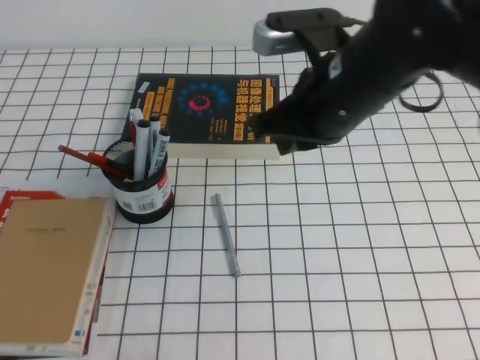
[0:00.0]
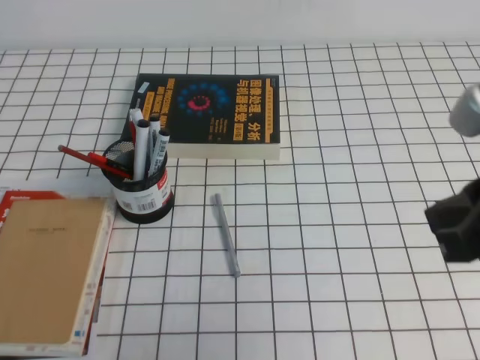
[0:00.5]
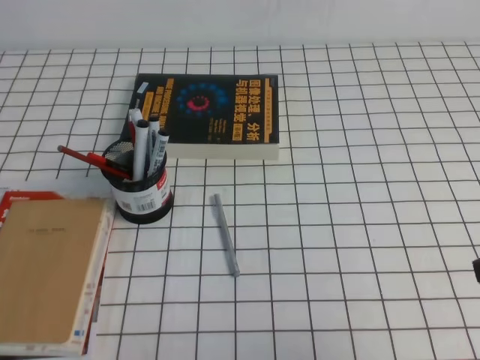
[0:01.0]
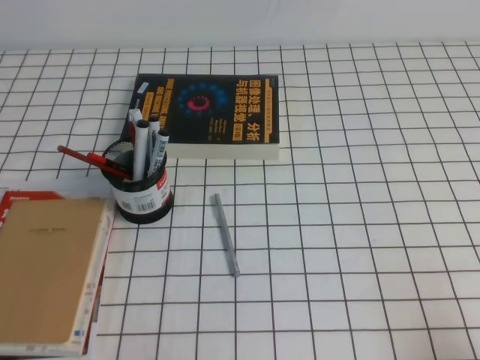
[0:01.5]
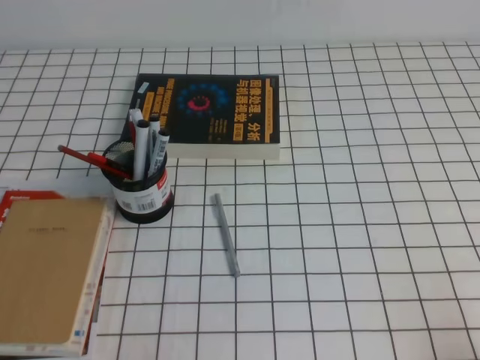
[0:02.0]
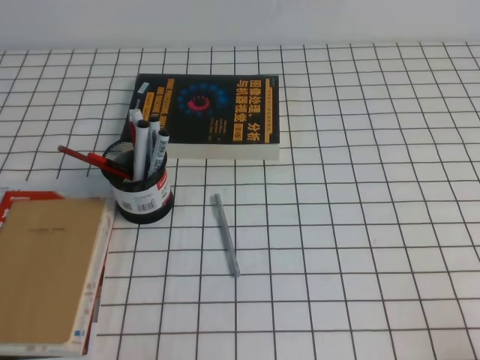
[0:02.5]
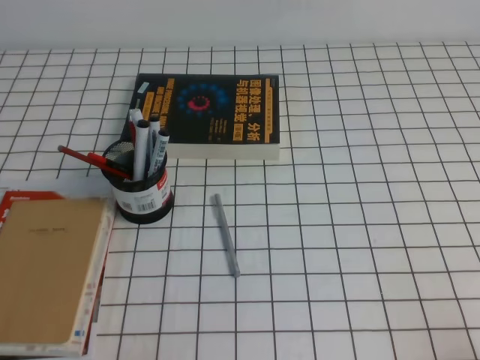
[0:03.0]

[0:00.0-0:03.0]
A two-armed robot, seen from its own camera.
Step, 0:00.0 to 0:03.0: Pick up the pen from the pen holder.
0:00.0 to 0:01.5: The right gripper goes approximately 35 cm backward, to the right and downward.

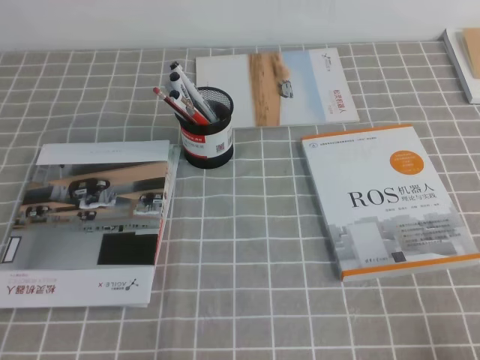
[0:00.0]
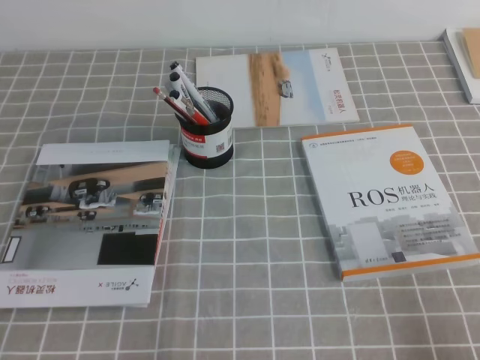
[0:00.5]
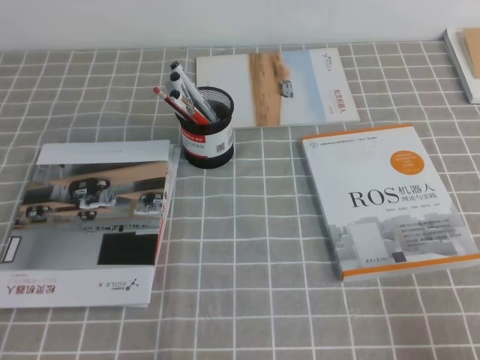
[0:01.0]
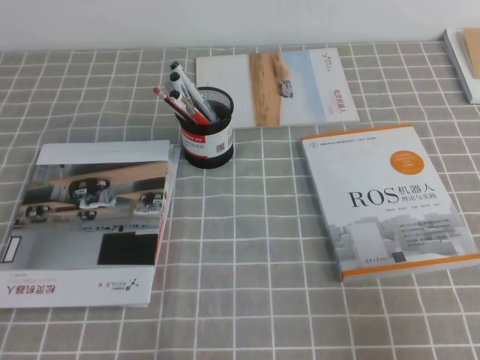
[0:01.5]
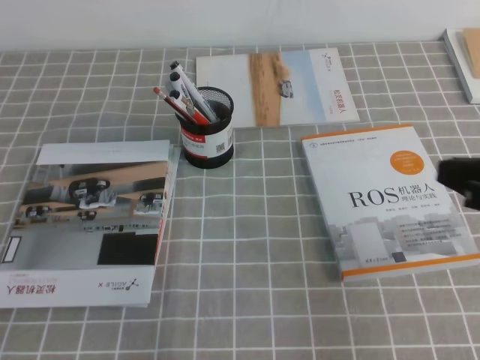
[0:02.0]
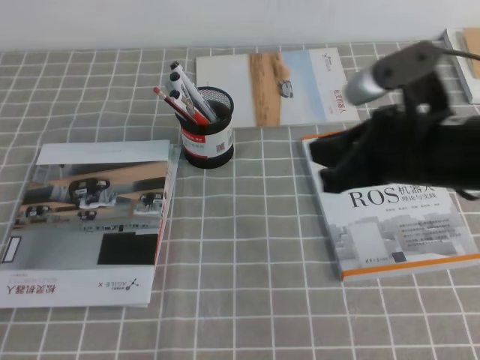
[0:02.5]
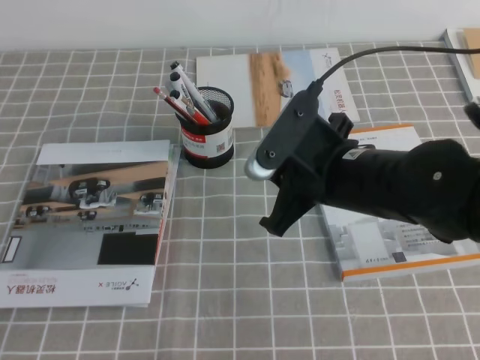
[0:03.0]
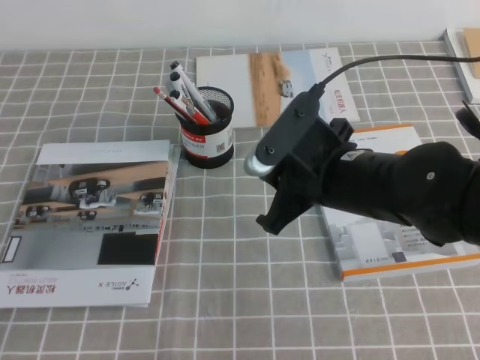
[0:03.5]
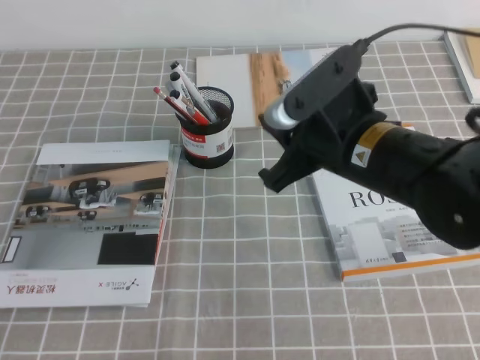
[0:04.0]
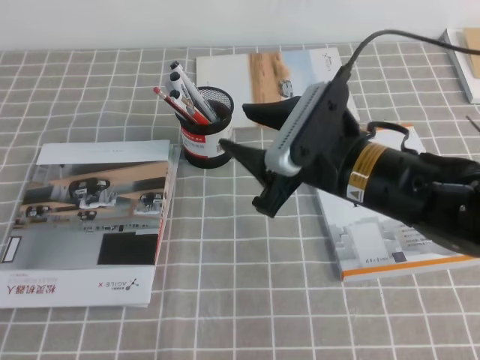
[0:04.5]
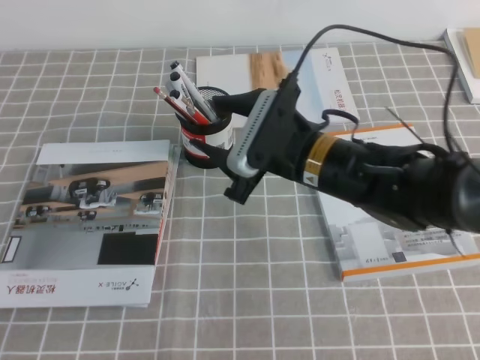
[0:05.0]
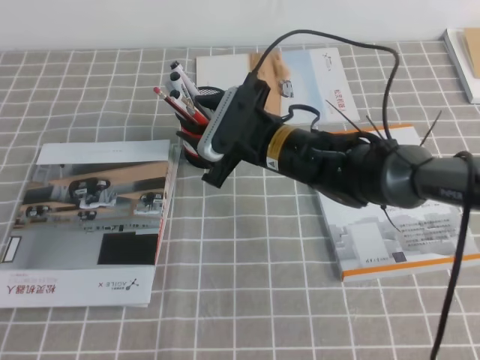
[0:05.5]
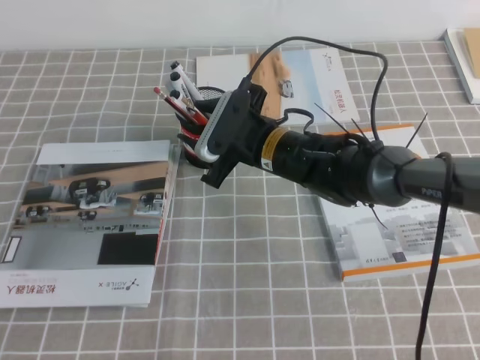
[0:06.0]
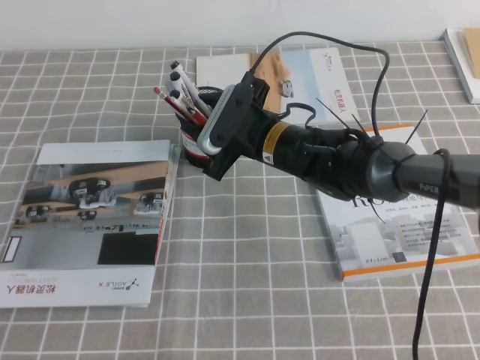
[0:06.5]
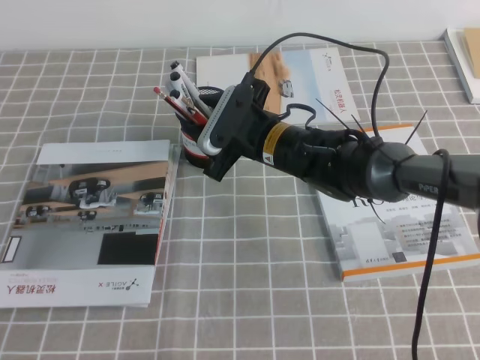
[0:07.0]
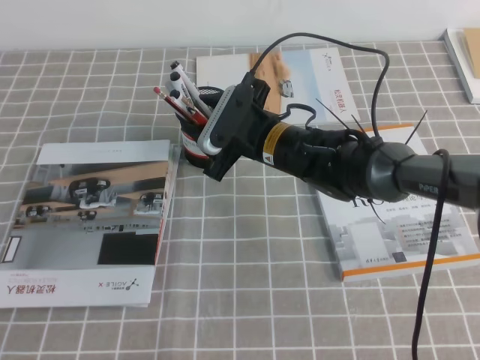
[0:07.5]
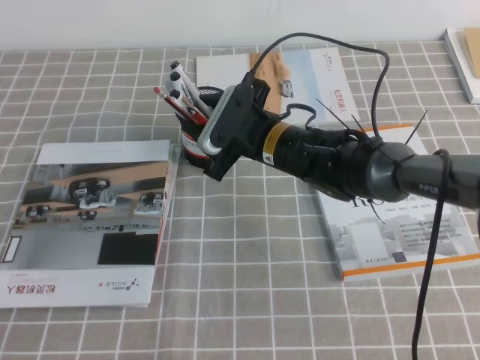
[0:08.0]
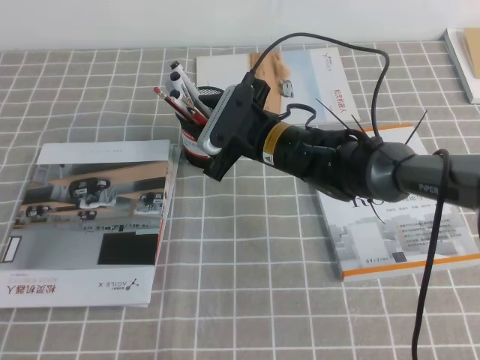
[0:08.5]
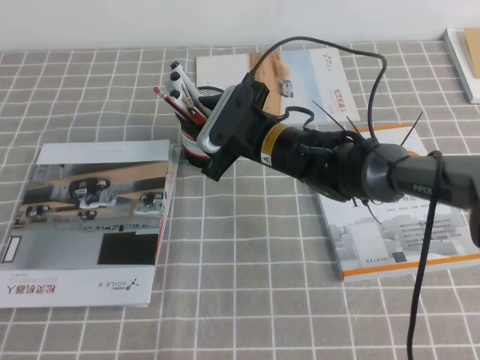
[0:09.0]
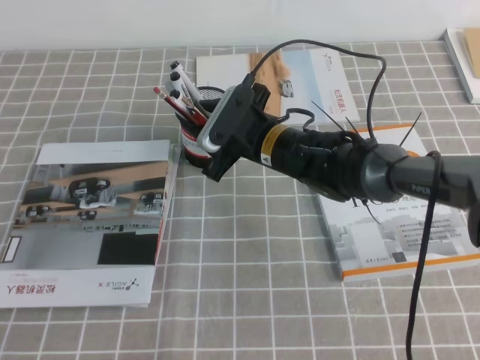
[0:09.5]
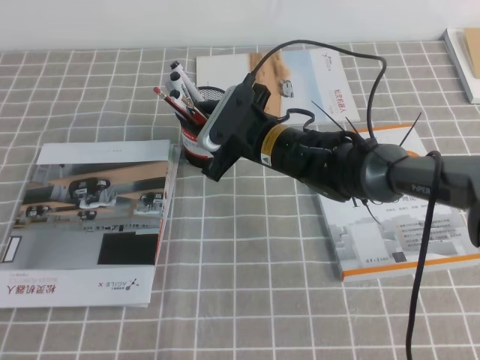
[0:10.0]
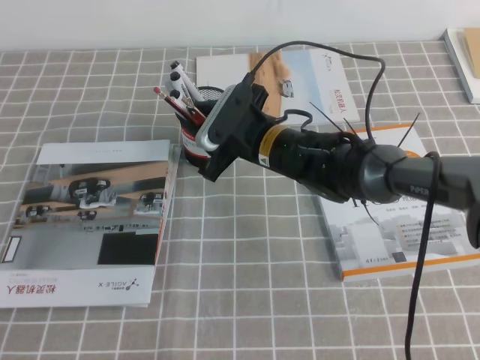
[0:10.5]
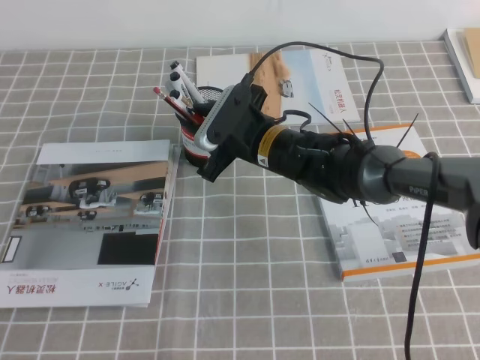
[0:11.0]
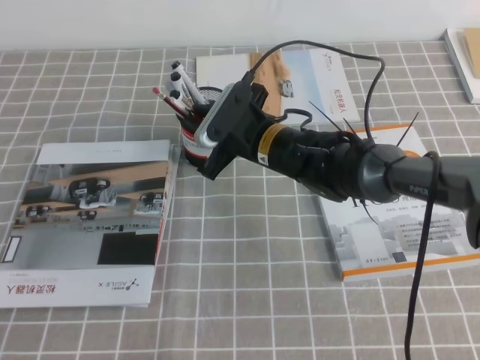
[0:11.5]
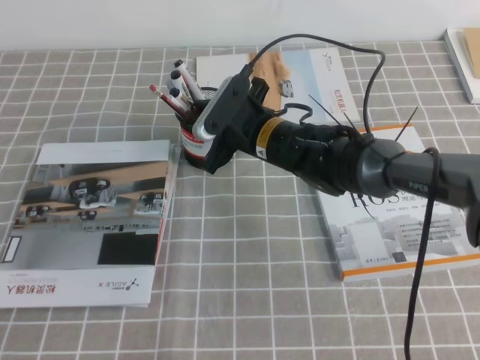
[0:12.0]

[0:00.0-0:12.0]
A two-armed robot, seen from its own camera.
0:00.0 to 0:02.0: The right gripper travels forward and upward by some 20 cm.
0:02.0 to 0:04.0: The right gripper goes roughly 20 cm to the left and forward.
0:04.0 to 0:06.0: The right gripper is displaced forward, downward and to the left by approximately 15 cm, and opens.
0:06.0 to 0:08.0: Both grippers stay about where they are.
0:08.0 to 0:10.0: Neither gripper changes place.
0:10.0 to 0:12.0: The right gripper closes.

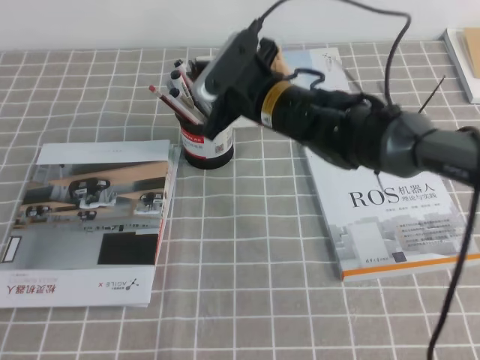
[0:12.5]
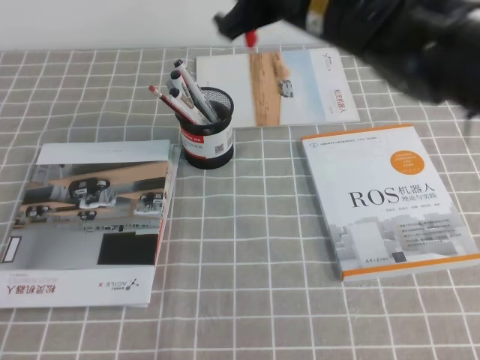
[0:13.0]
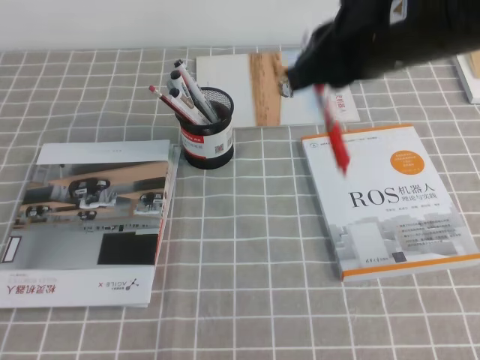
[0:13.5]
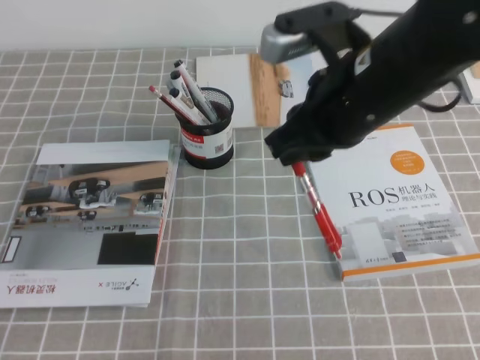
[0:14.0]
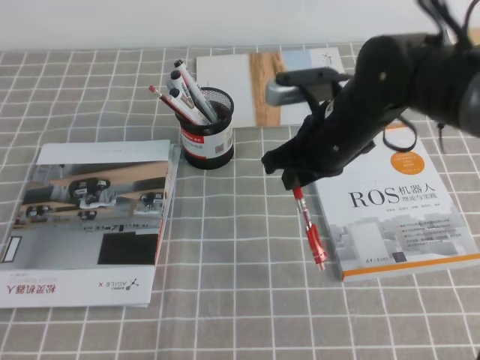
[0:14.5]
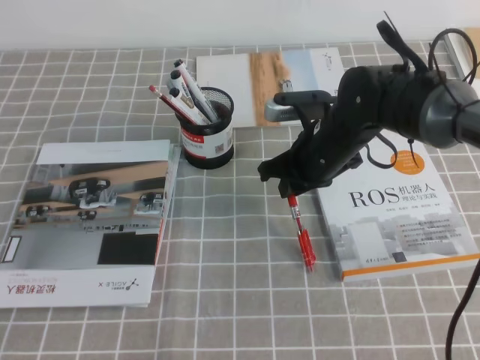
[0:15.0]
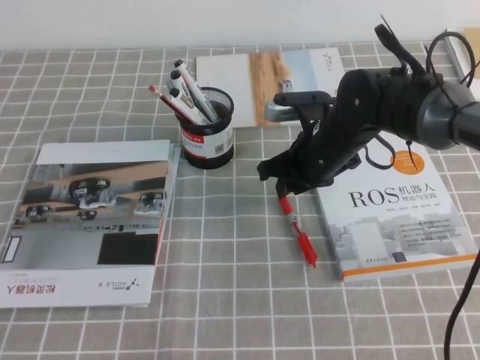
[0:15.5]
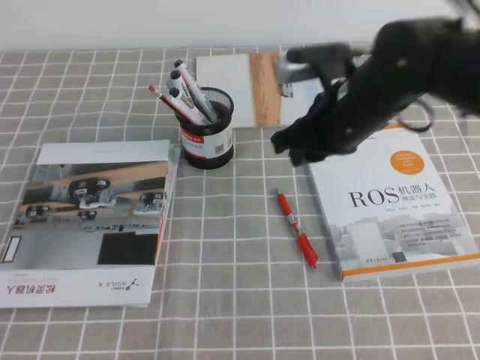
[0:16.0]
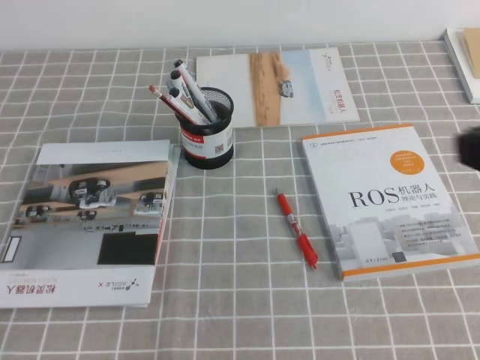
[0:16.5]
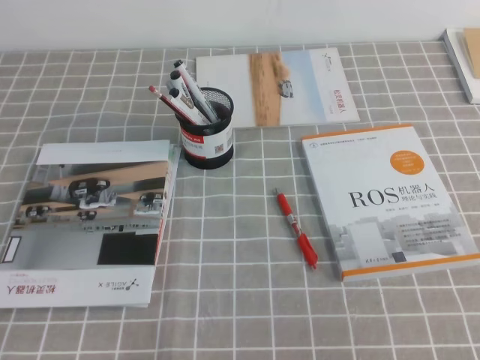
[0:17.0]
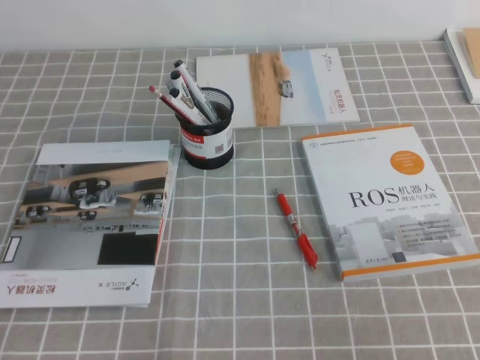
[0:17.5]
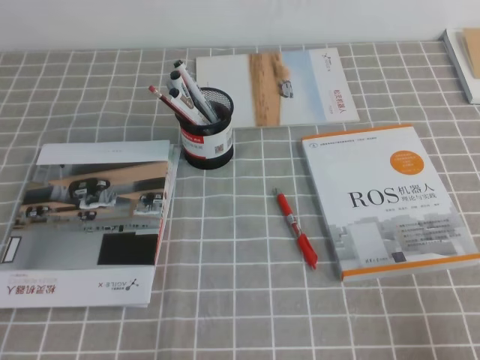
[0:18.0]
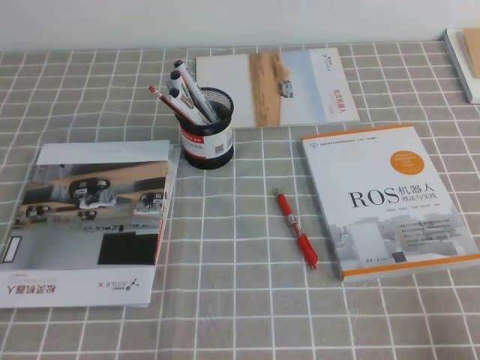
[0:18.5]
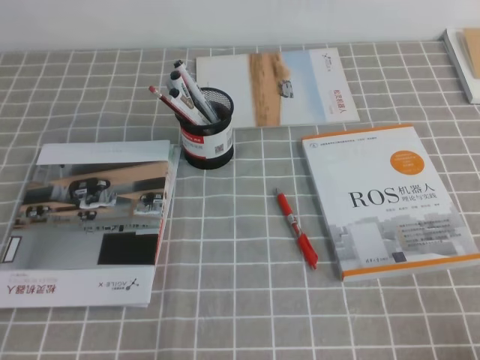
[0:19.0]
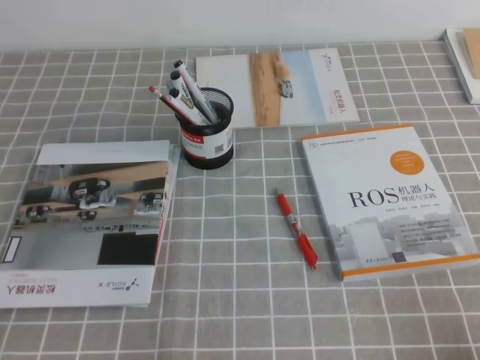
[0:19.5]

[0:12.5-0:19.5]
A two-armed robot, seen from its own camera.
Step, 0:12.5 to 0:19.5: Pick up the pen from the pen holder.
0:12.5 to 0:14.5: The right gripper heads to the right and backward, covering approximately 10 cm, and travels upward and back again, approximately 15 cm each way.
0:14.5 to 0:16.0: The right gripper travels downward and back again, some 5 cm each way.
0:16.0 to 0:17.5: The right gripper is displaced backward and to the right by some 30 cm.
0:17.5 to 0:19.5: The right gripper travels downward by roughly 15 cm.
